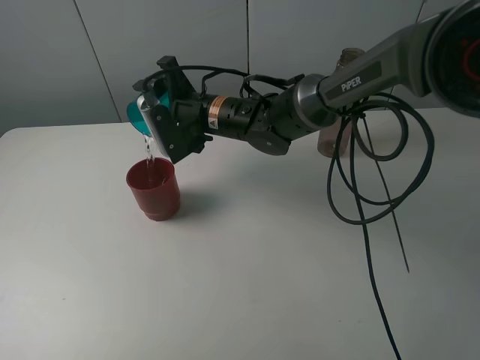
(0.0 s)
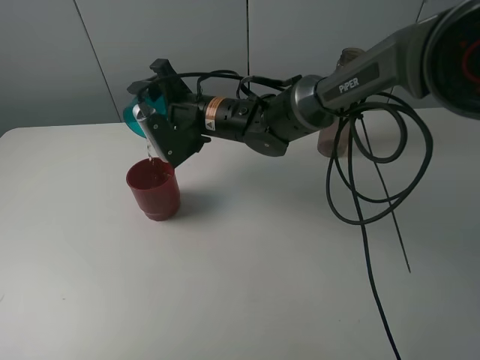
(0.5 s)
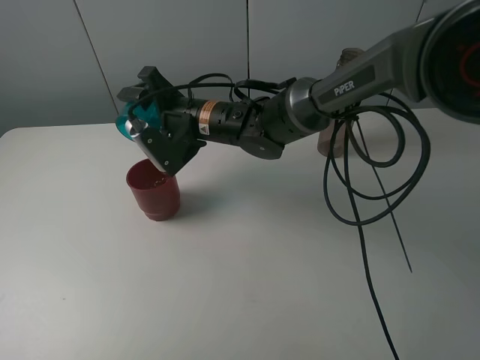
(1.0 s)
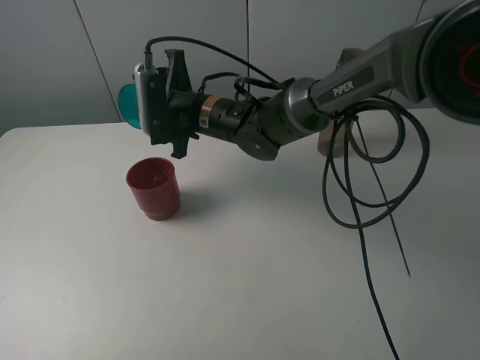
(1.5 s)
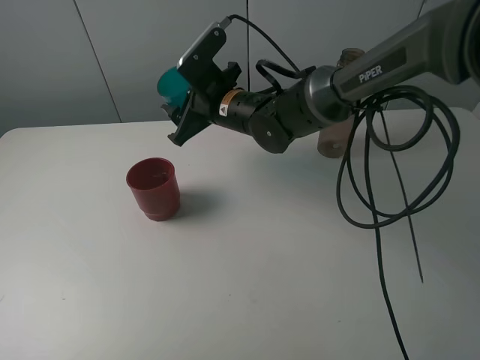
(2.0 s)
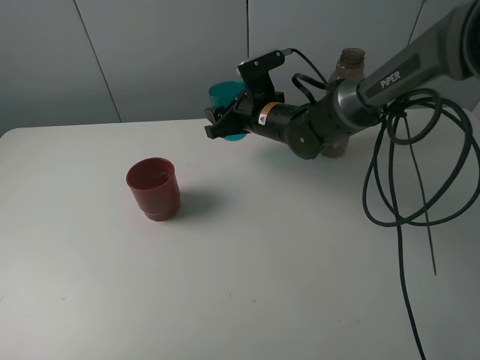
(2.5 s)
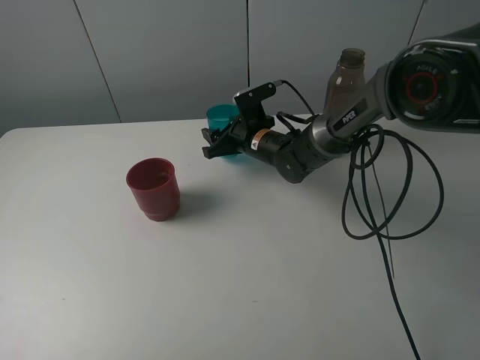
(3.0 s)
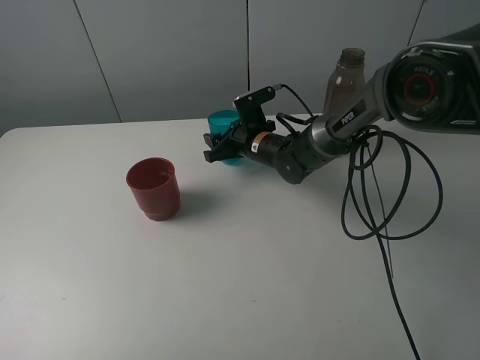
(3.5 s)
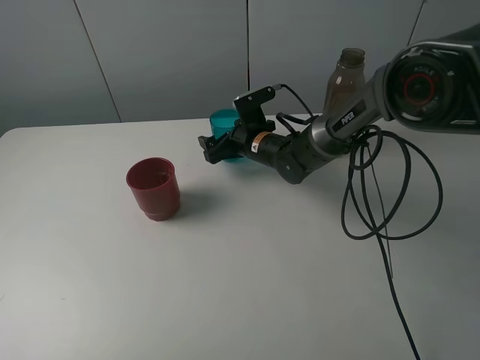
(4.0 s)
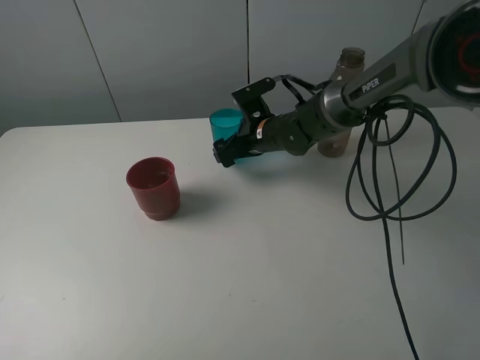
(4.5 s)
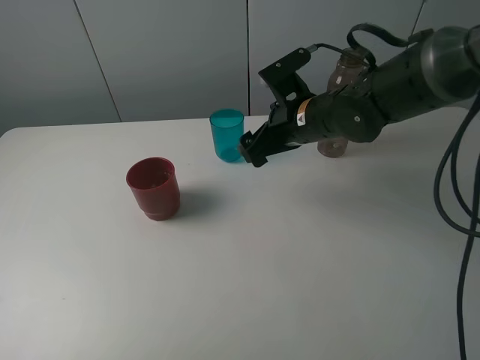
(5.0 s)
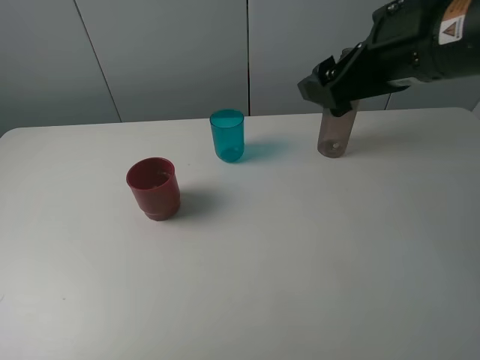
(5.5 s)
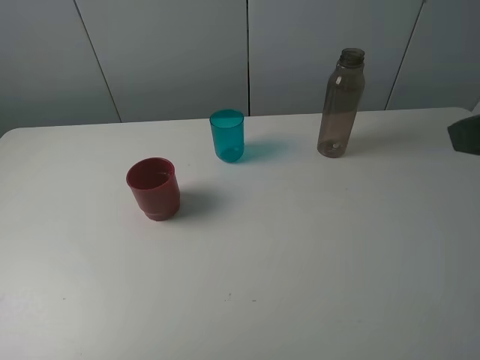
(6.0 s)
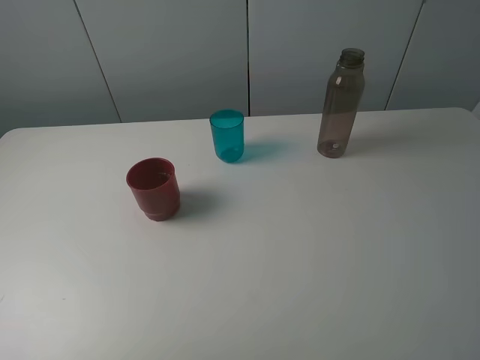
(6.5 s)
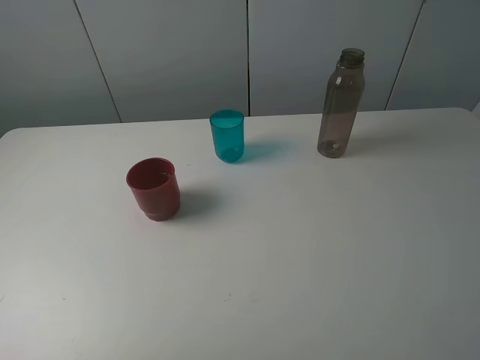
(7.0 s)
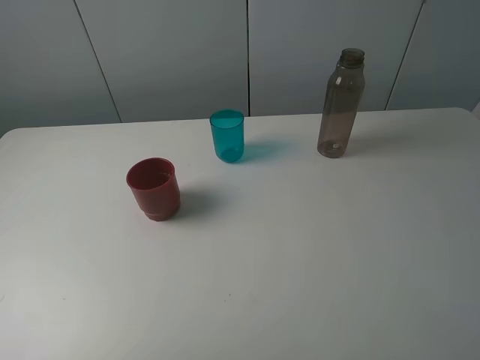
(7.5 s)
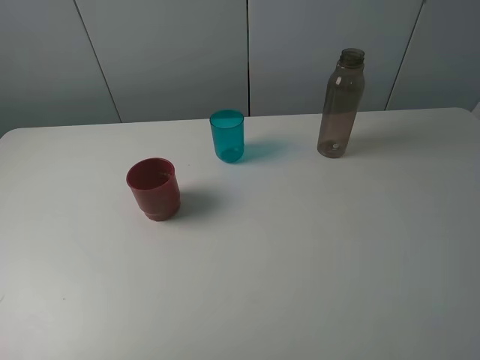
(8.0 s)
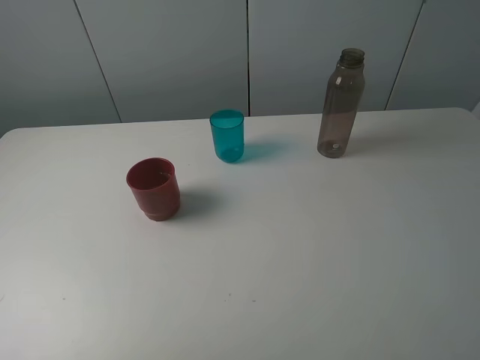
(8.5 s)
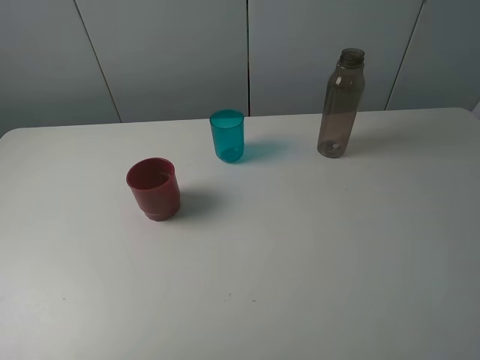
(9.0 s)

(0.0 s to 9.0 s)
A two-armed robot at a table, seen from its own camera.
Task of the whole recording: pick up the bottle and pour water into the cup, then pick up the cup containing water and pour it into another cup.
Step, 1.5 s - 4.0 s: Place the blue cup with the right gripper.
2.0 s - 4.5 s: The right gripper shifts some 10 cm downward and to the right, and opens its fingers.
4.5 s - 7.0 s: The right gripper goes some 50 cm backward, to the right and upward.

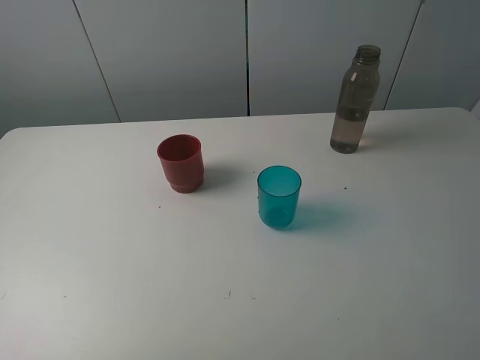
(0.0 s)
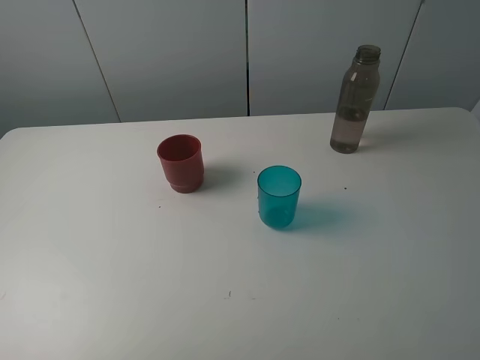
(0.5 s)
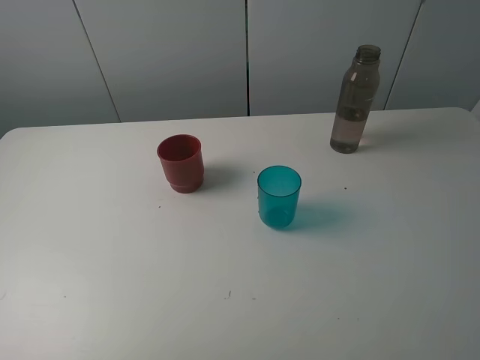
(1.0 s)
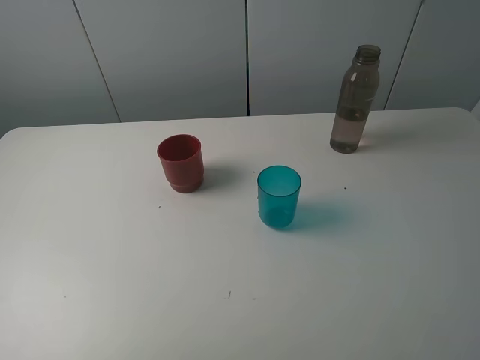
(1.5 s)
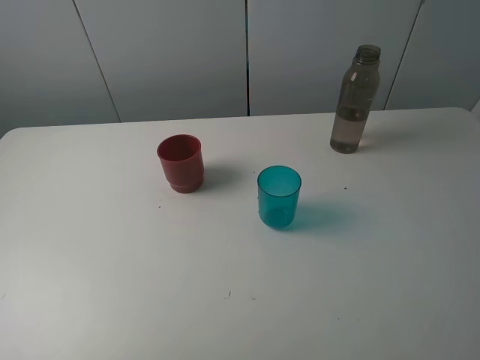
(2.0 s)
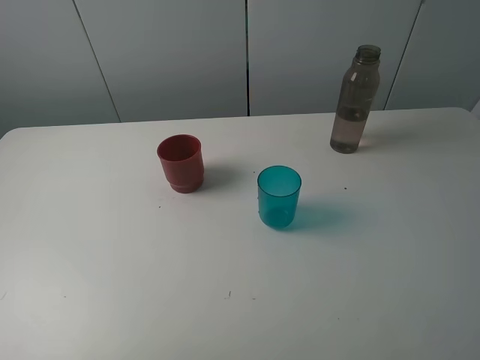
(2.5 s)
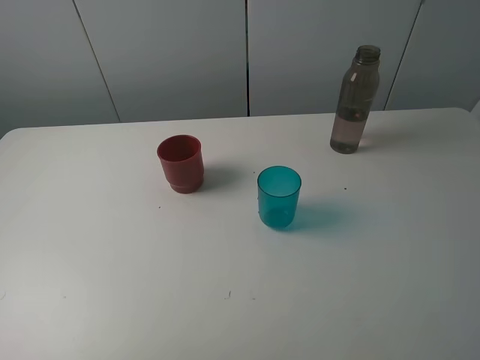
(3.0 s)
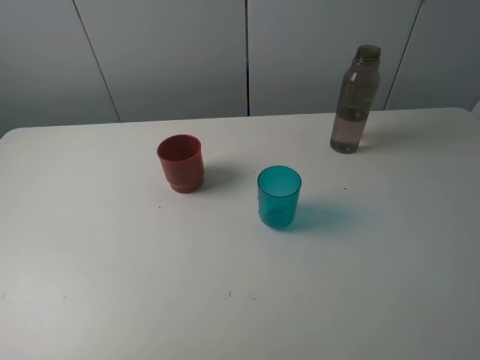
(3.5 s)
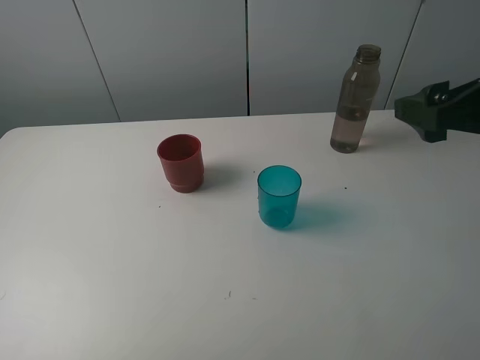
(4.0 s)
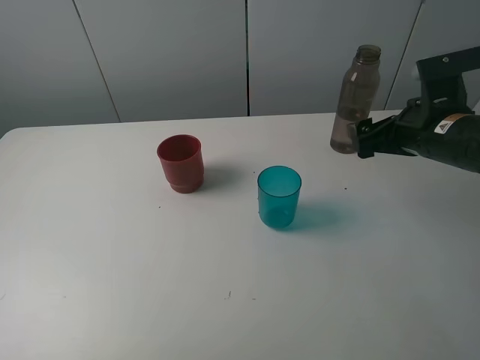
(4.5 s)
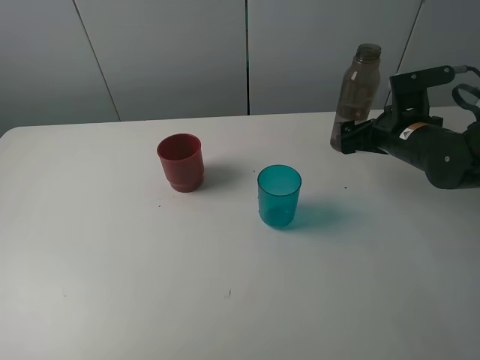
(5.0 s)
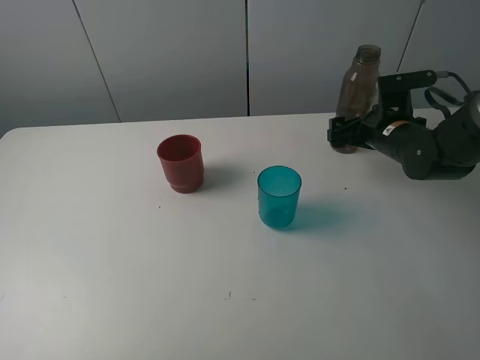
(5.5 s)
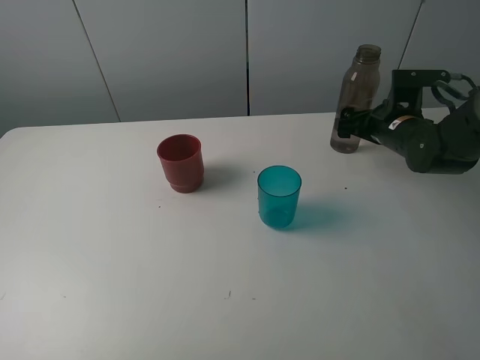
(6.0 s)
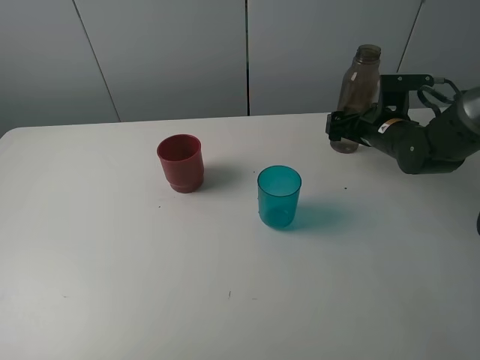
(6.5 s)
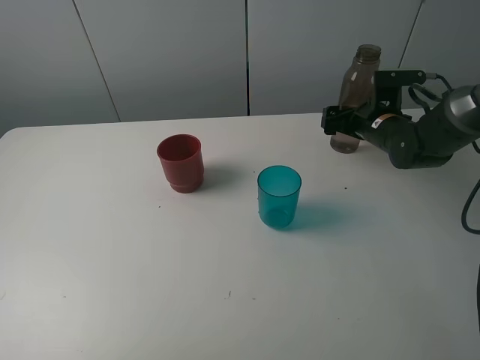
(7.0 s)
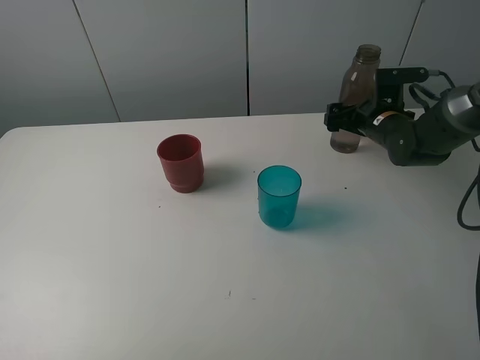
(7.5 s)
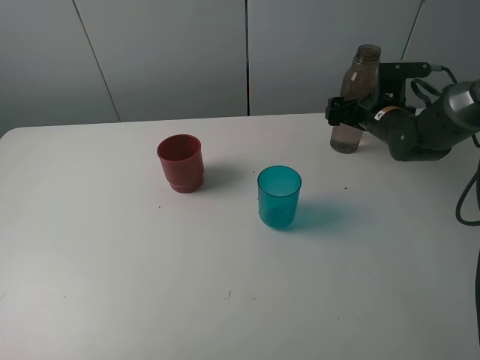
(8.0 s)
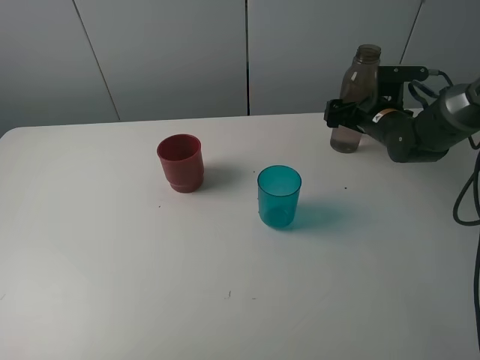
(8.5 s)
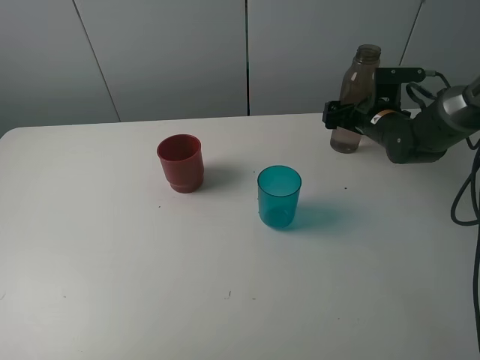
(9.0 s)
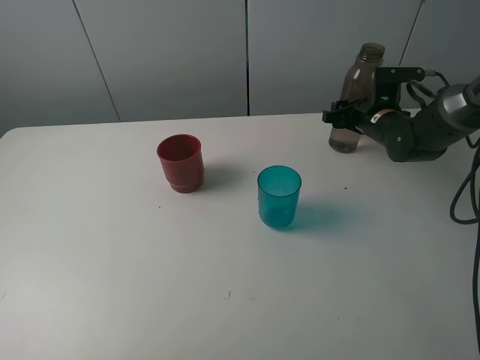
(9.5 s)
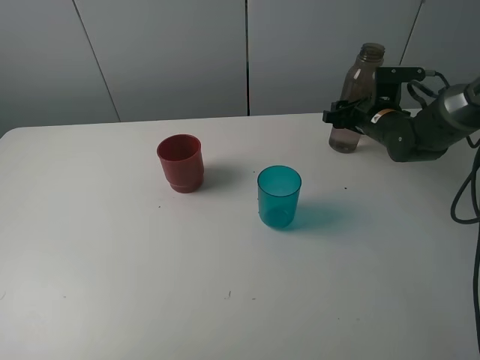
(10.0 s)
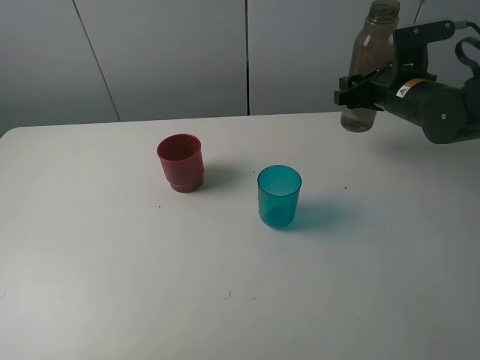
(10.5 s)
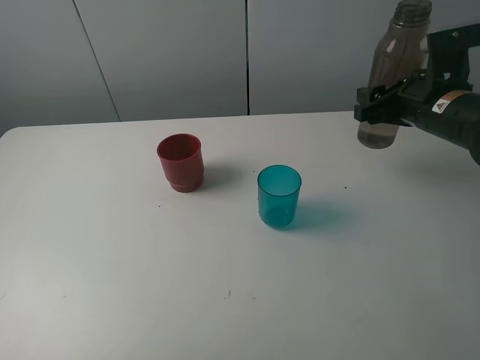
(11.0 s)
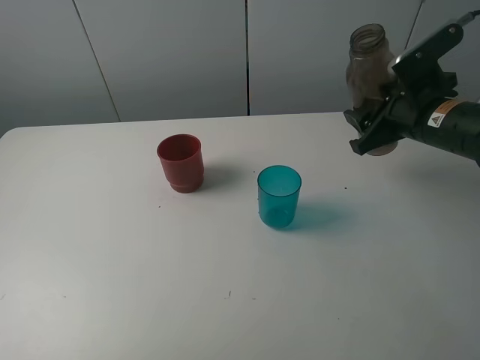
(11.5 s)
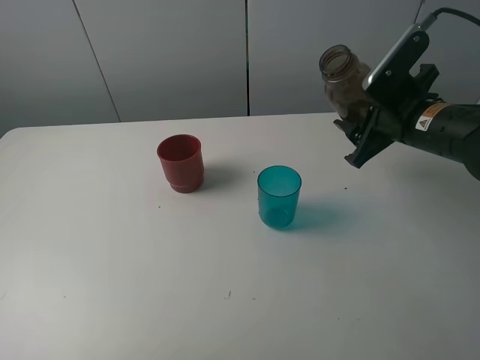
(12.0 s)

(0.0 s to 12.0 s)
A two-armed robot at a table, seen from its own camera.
Task of the whole recording: pick up the bottle and pour water into the cup, then pick up the cup containing water and pour it into another cup.
Step, 0.0 s - 9.5 s: Grasp the brown bottle with the right gripper.
0.0 s - 2.0 s: Both grippers stay about where they are.
2.0 s - 4.0 s: The right gripper shifts roughly 20 cm forward.
4.0 s - 6.0 s: The right gripper is displaced forward and downward by roughly 25 cm.
6.0 s - 8.0 s: The grippers make only small movements.
8.0 s - 10.0 s: The right gripper closes its fingers.
10.0 s - 12.0 s: The right gripper moves backward and upward, some 15 cm.

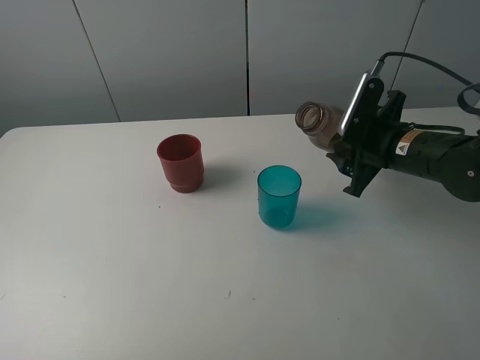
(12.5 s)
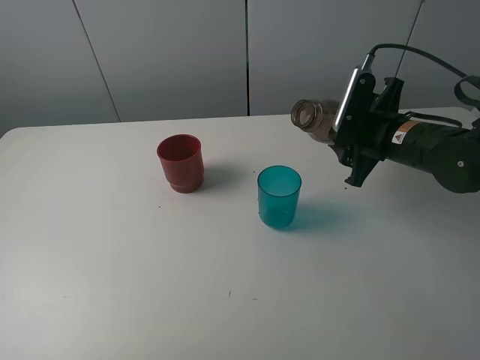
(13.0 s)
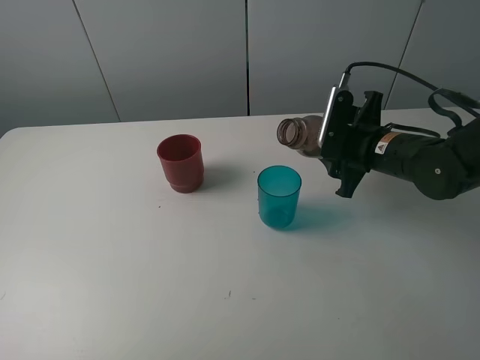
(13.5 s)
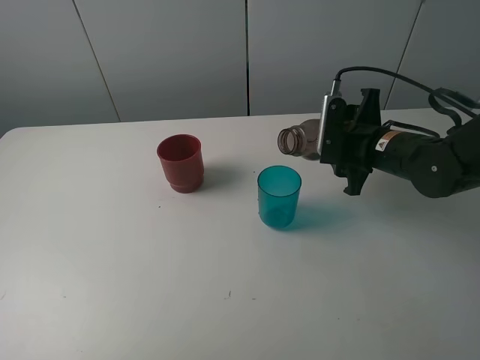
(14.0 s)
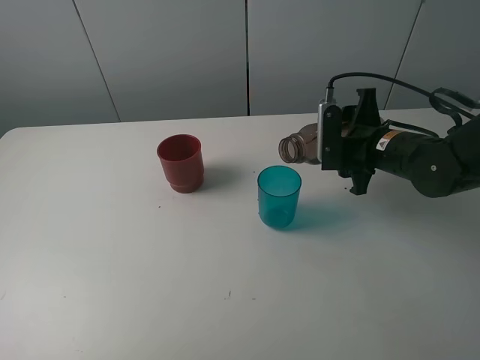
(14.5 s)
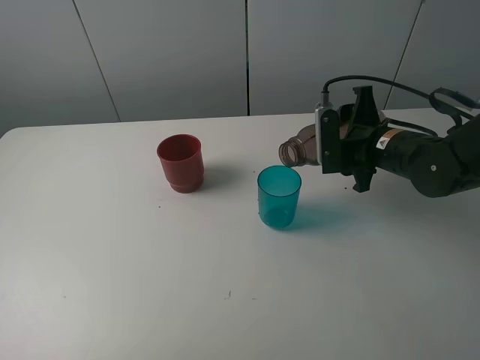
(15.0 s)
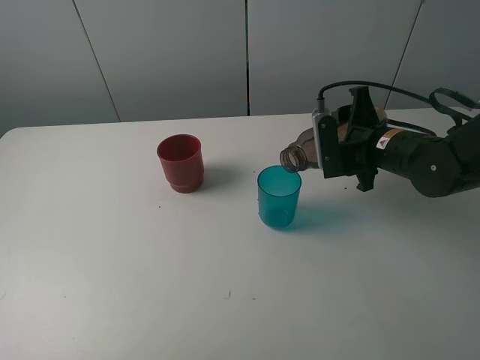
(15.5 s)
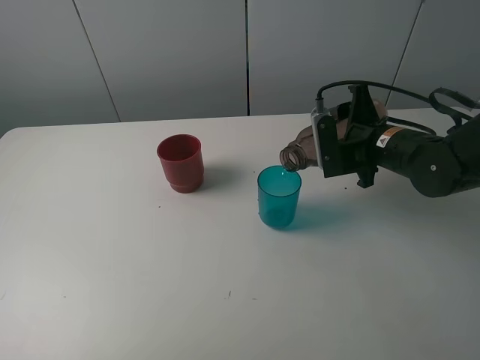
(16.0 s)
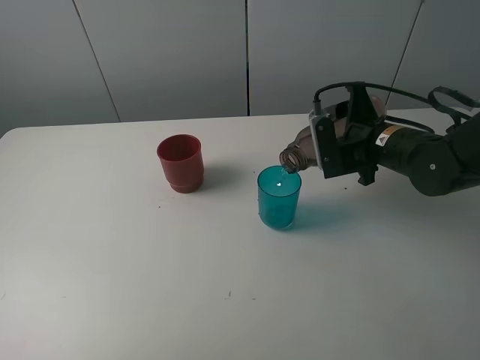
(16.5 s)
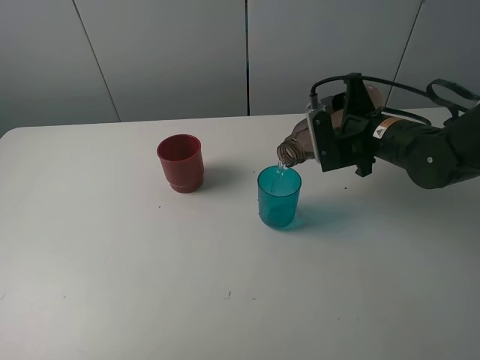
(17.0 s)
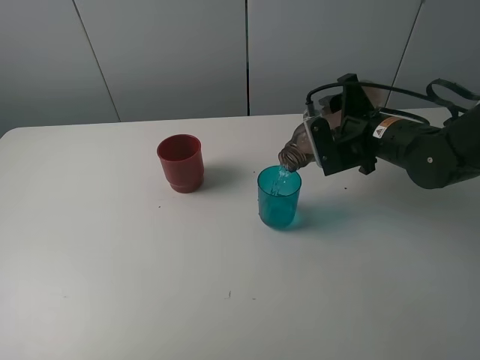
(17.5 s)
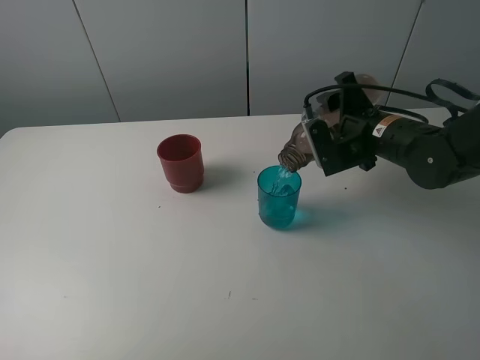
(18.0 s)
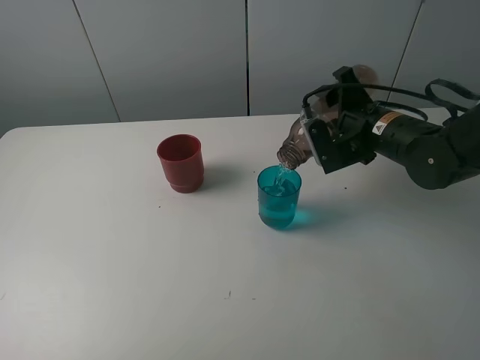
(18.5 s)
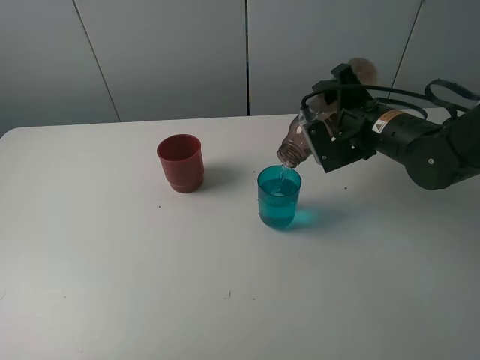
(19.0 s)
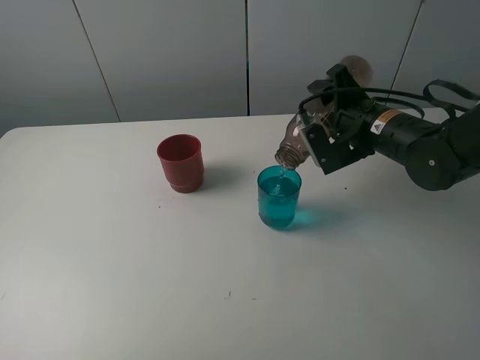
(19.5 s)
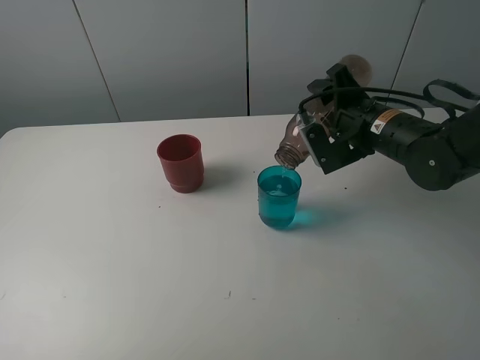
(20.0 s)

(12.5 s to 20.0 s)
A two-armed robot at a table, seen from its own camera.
Task of the whole recording: pick up the bottle and pour water into the cup, then pick up the cup containing water and pour it into another cup.
14.5 s - 16.5 s: The grippers stay close to where they were, moving slightly.
16.5 s - 18.0 s: There are only small adjustments of the grippers.
18.0 s - 20.0 s: The grippers make only small movements.
